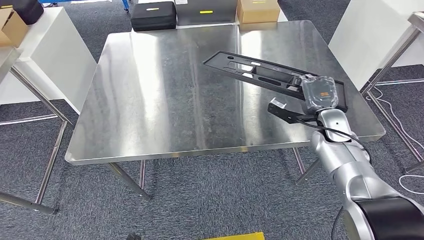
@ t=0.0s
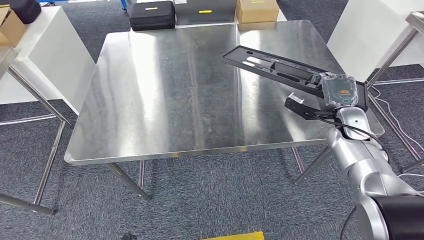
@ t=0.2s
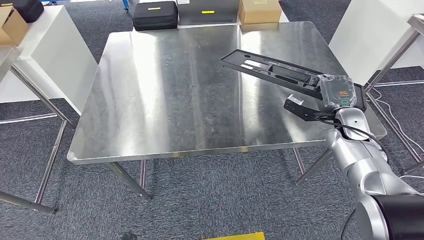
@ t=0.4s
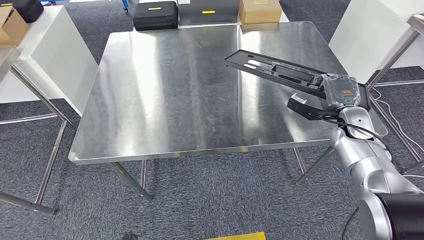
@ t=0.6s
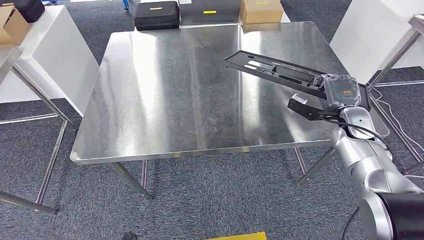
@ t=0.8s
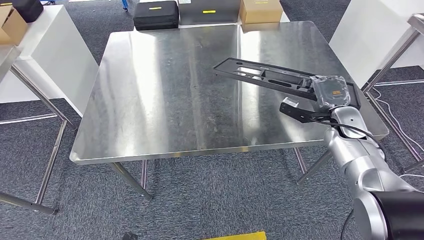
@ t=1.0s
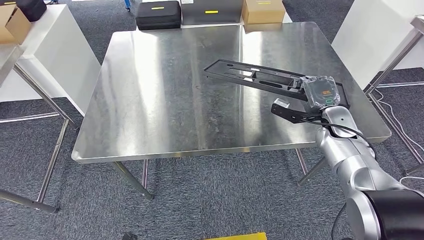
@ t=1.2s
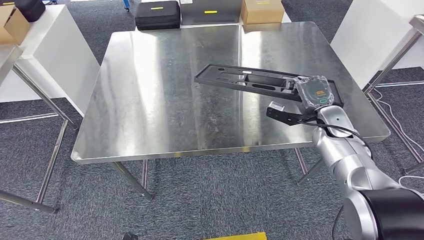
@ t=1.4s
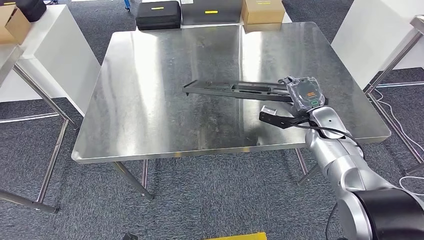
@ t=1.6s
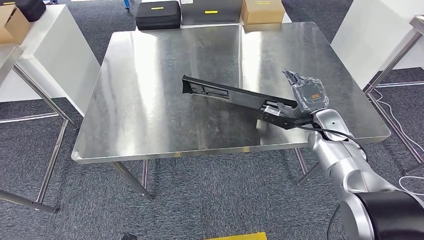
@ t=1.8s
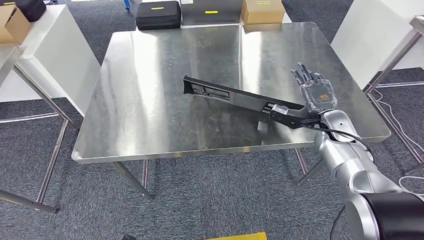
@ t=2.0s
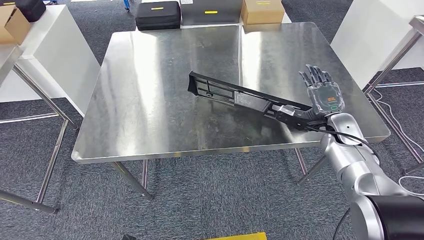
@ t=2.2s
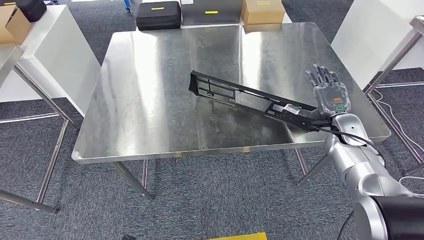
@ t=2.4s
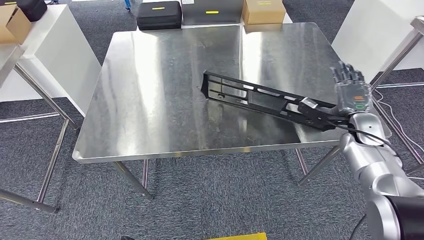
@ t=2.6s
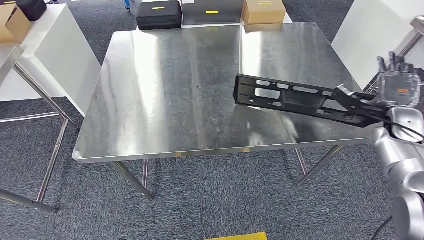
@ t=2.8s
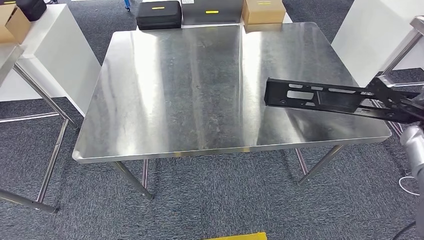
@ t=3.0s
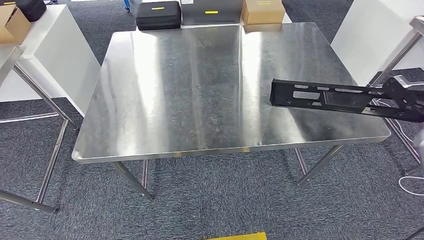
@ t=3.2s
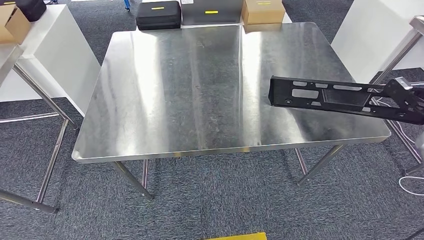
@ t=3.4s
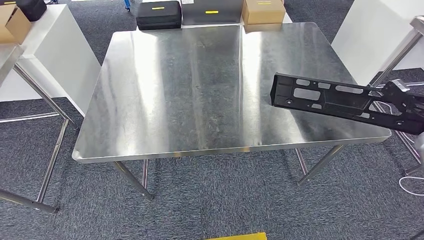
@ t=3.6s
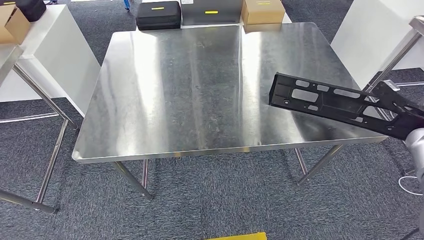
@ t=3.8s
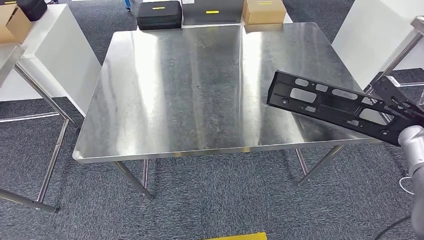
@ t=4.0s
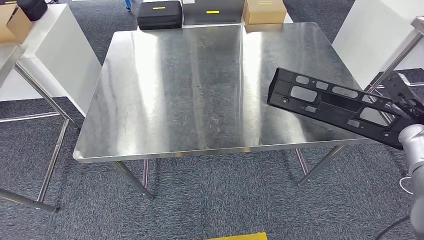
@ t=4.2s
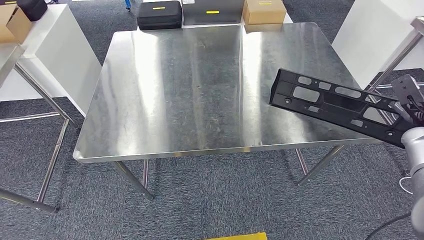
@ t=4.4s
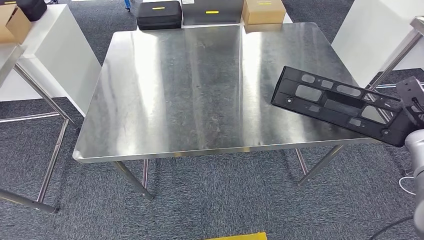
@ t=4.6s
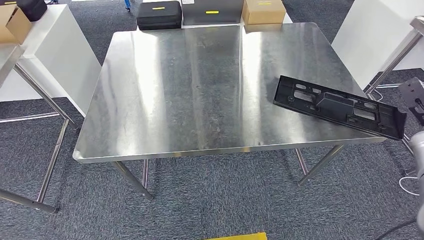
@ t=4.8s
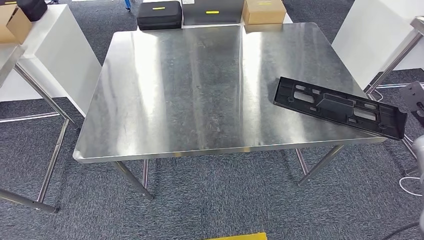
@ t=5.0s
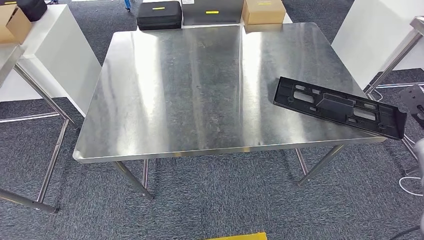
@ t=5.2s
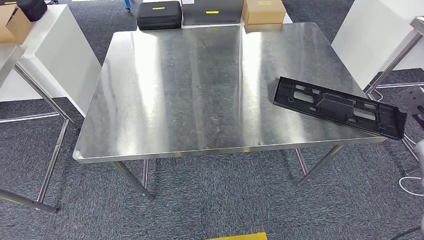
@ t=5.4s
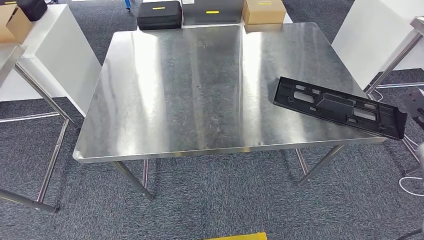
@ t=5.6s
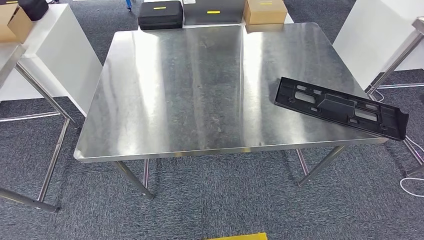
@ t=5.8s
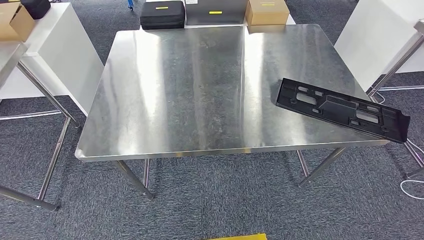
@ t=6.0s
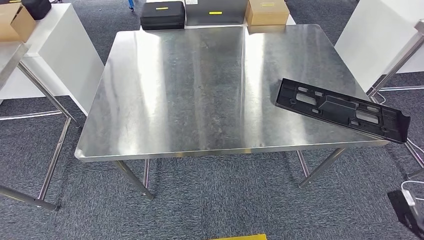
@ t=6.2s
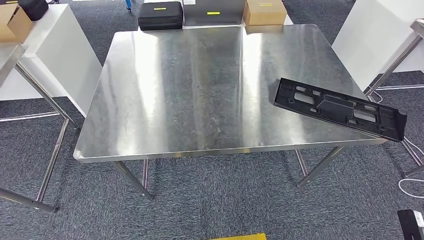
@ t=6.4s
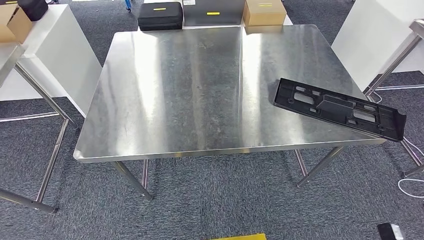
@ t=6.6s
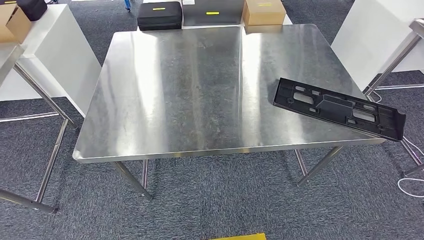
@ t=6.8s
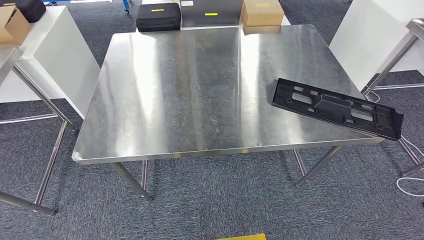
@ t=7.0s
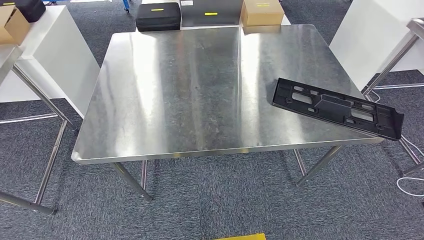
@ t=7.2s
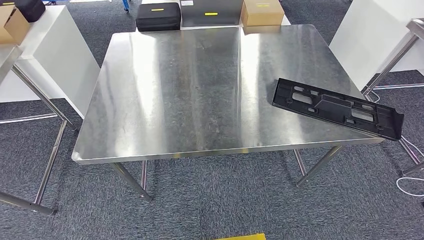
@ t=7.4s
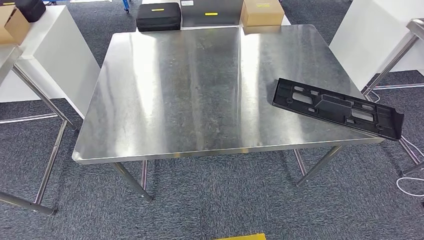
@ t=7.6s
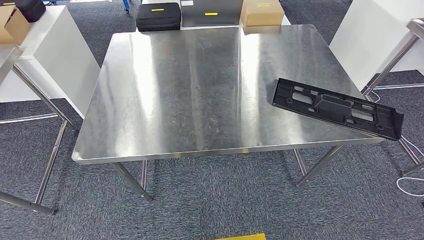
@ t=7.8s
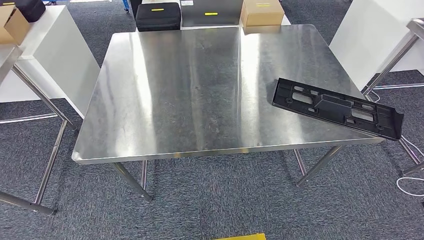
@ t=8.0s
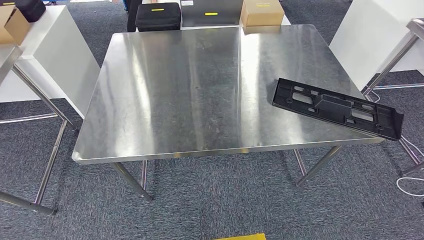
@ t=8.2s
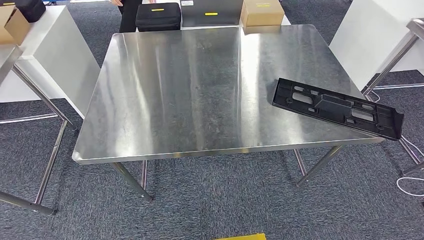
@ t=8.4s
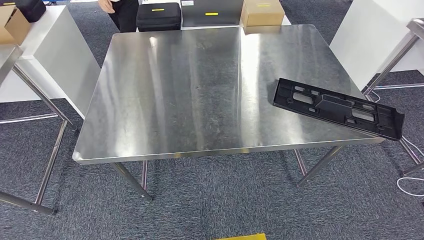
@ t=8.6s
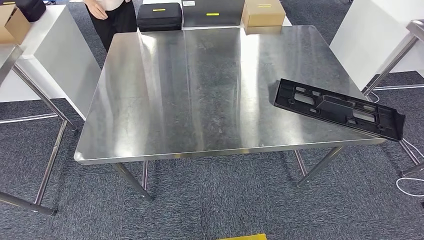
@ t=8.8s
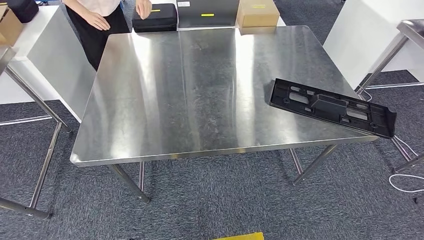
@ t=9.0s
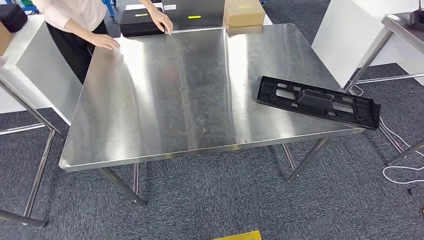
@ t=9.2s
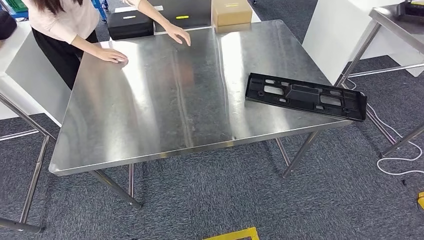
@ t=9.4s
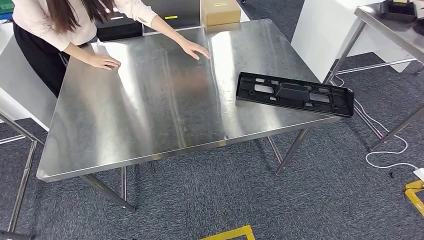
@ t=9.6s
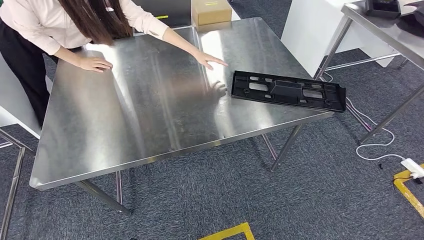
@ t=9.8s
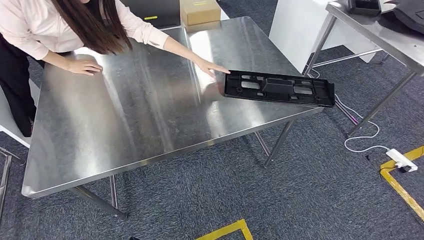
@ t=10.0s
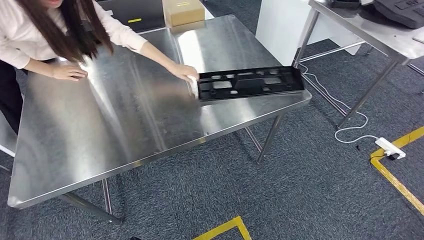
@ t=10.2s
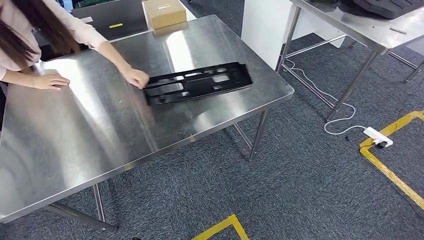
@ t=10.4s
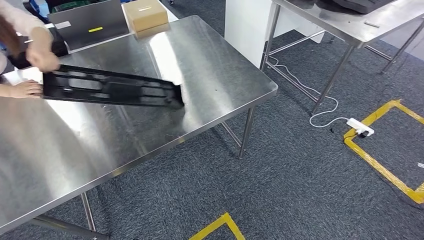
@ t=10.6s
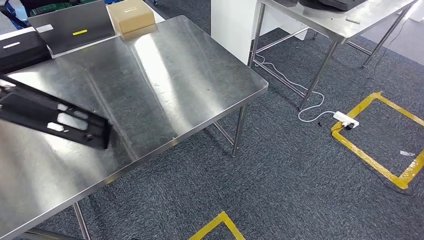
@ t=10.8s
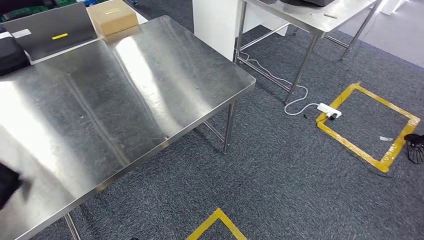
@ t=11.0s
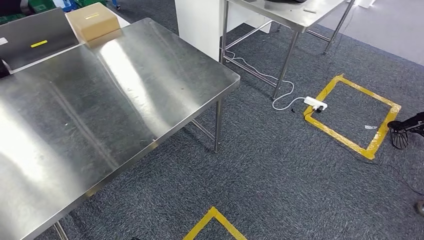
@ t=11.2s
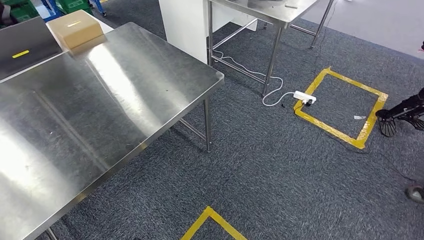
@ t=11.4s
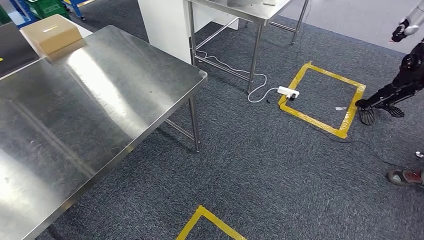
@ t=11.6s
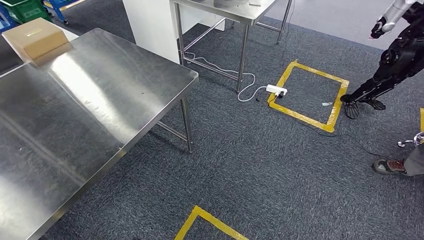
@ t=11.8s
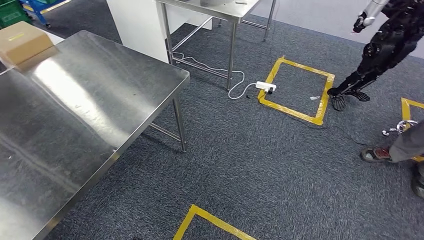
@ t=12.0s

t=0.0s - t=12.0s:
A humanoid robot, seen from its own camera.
Step, t=0.0s - t=7.6s: Insert the large material into the corresponding slot on the workbench.
t=0.0s - t=1.6s: The hands make only small movements.
t=1.6s - t=3.0s: The right hand goes approximately 20 cm to the right.
t=4.4s - t=6.0s: The right hand shifts roughly 15 cm backward, to the right and downward.
t=6.0s - t=7.6s: The right hand moves to the left, downward and backward, some 50 cm.

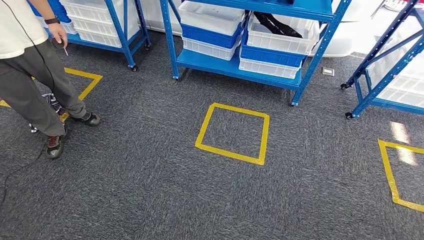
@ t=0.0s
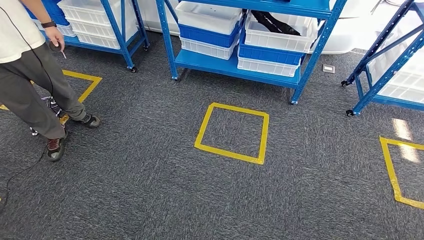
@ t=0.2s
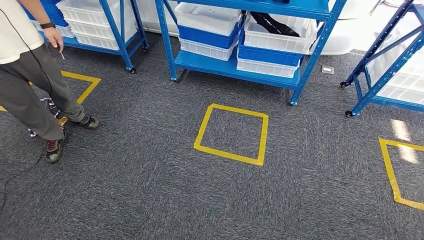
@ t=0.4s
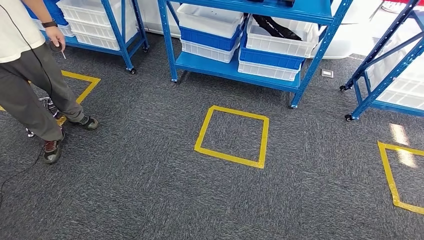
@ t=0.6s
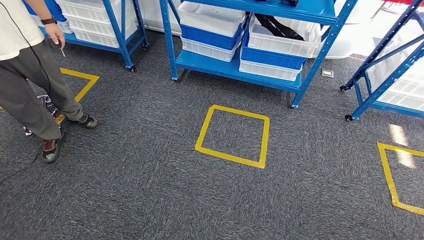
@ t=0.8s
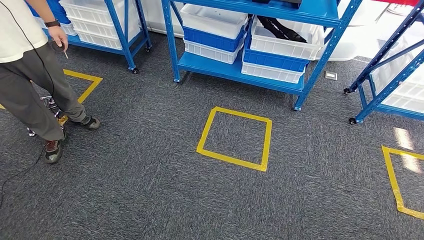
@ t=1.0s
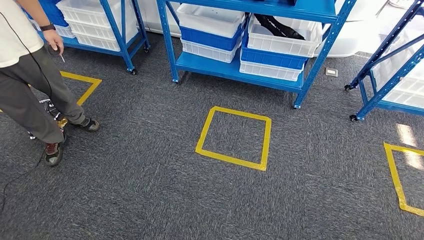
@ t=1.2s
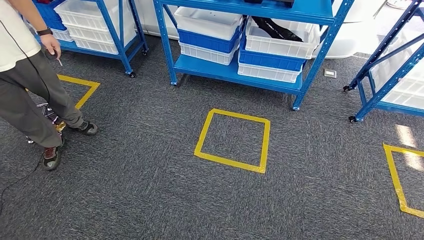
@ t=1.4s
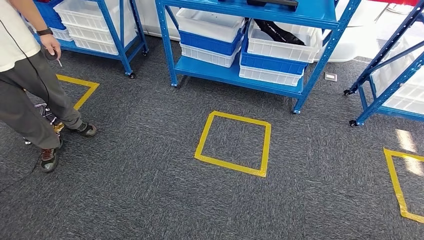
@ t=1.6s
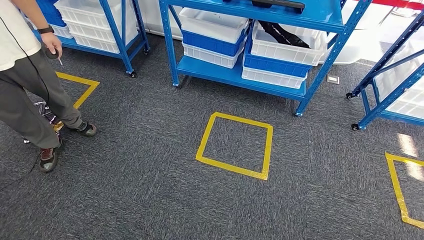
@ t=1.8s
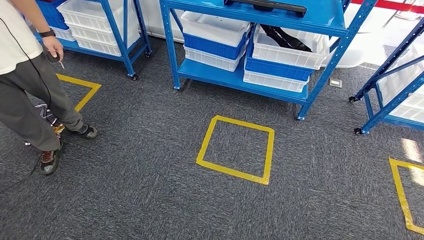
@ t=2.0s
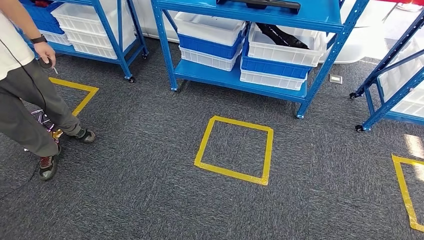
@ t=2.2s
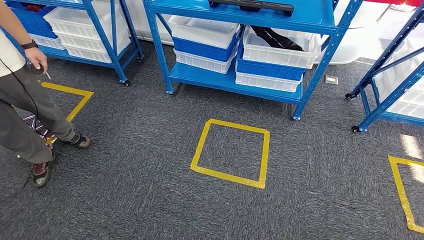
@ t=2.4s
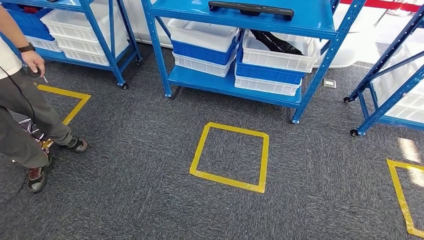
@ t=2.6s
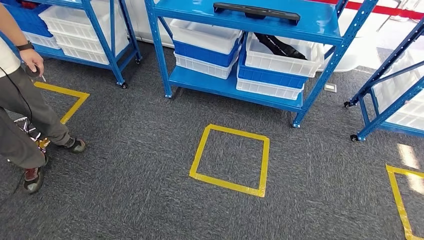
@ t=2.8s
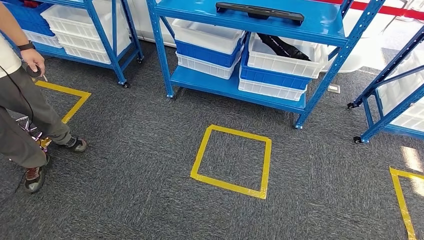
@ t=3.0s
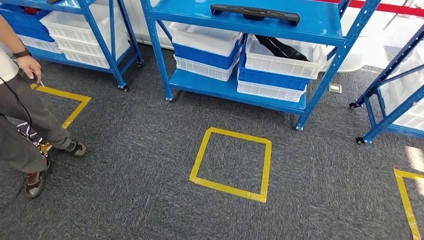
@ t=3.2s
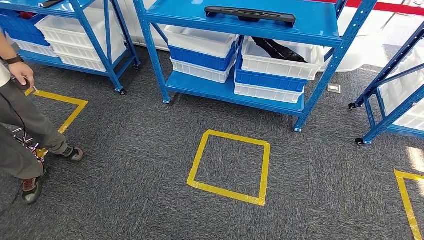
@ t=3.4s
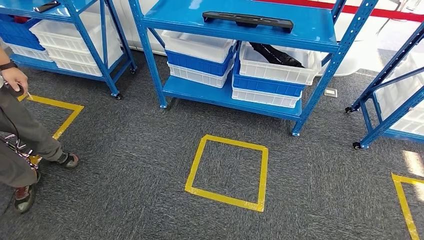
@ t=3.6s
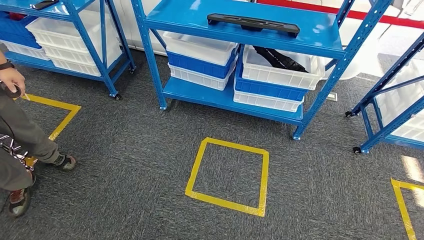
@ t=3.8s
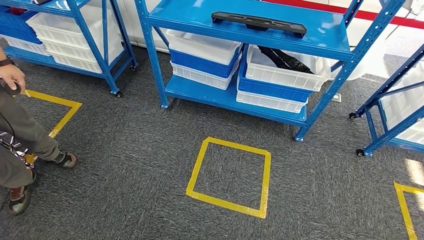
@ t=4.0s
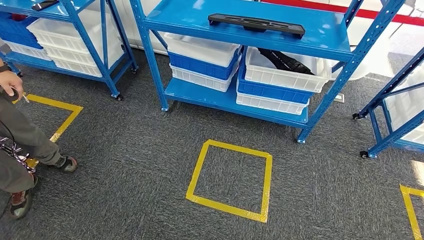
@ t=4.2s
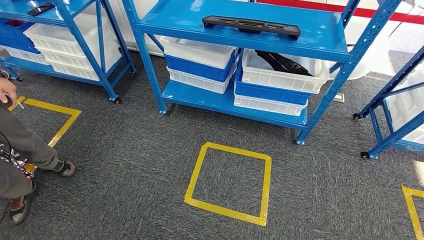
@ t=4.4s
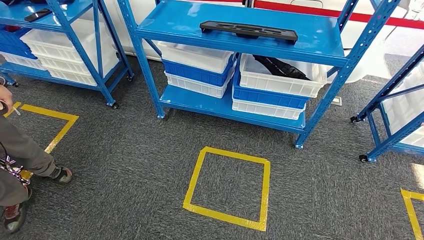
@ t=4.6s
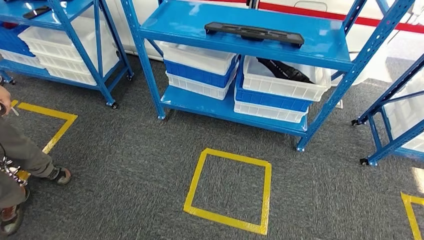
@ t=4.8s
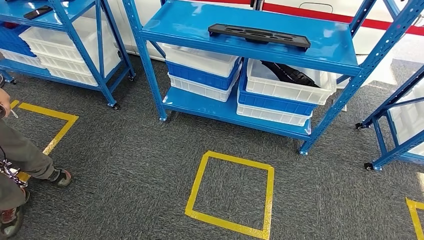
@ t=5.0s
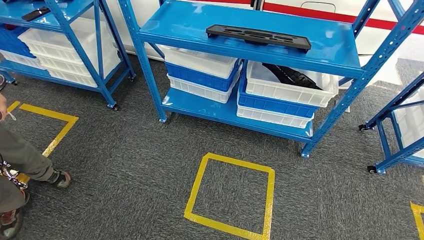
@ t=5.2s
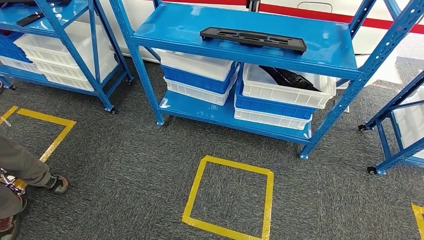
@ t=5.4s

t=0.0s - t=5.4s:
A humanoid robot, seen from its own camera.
Step, t=0.0s - t=5.4s: Move to the initial position of the shelf.
